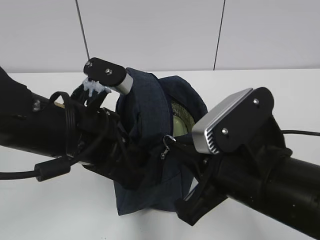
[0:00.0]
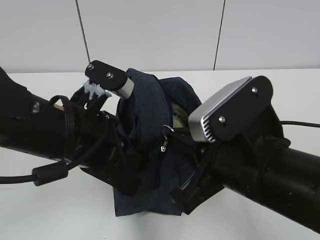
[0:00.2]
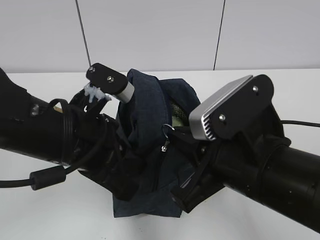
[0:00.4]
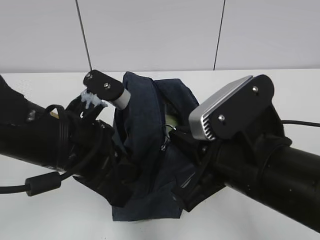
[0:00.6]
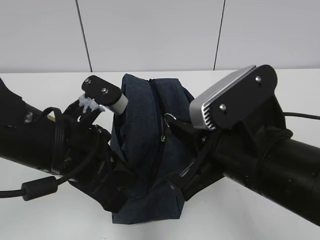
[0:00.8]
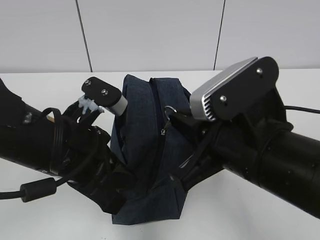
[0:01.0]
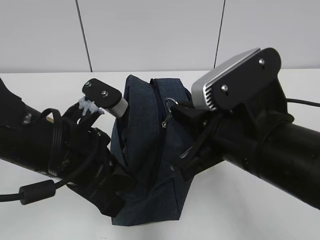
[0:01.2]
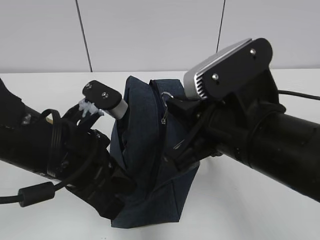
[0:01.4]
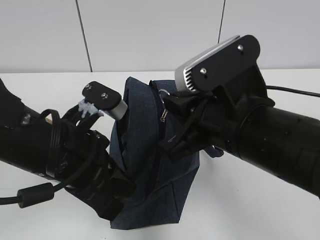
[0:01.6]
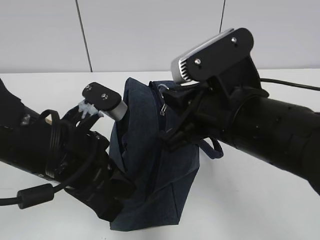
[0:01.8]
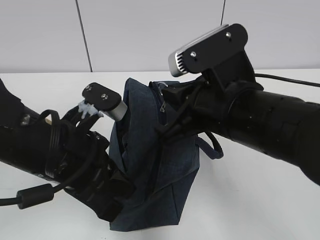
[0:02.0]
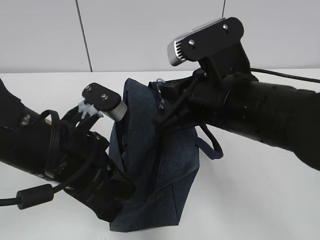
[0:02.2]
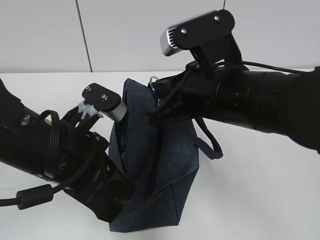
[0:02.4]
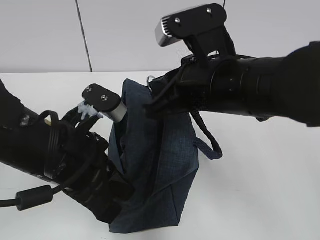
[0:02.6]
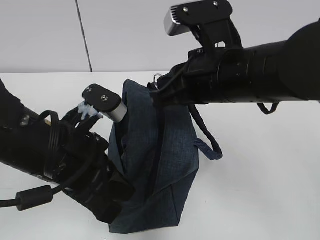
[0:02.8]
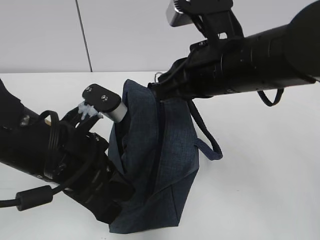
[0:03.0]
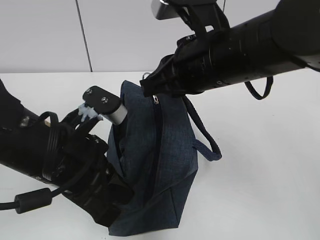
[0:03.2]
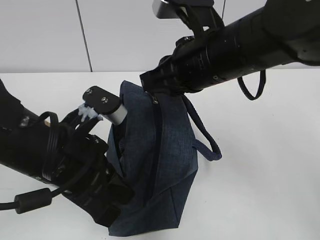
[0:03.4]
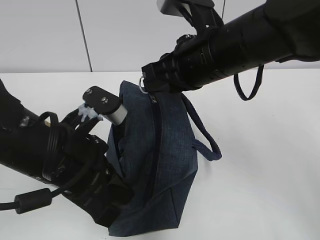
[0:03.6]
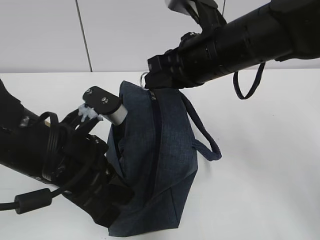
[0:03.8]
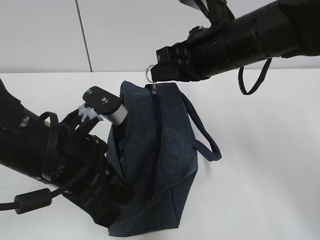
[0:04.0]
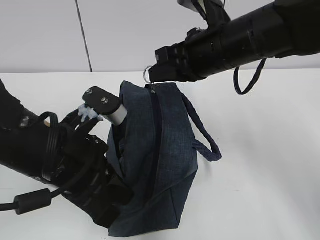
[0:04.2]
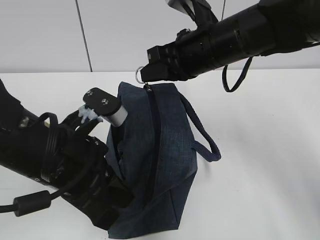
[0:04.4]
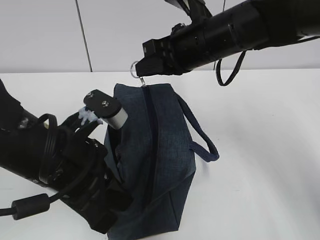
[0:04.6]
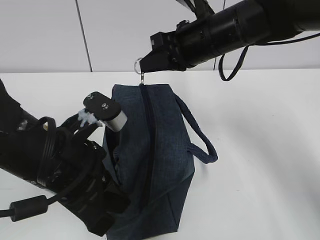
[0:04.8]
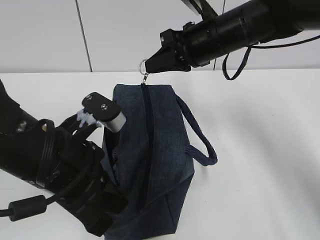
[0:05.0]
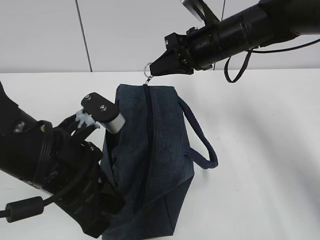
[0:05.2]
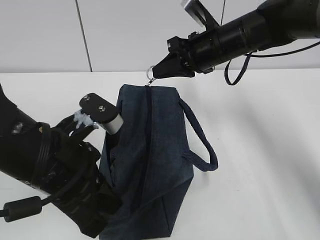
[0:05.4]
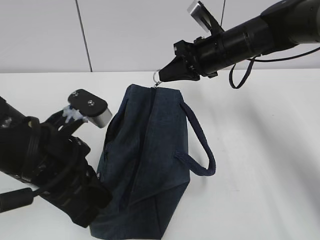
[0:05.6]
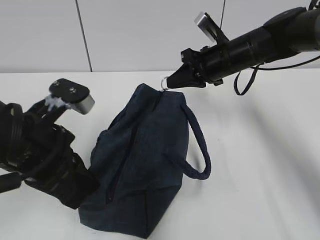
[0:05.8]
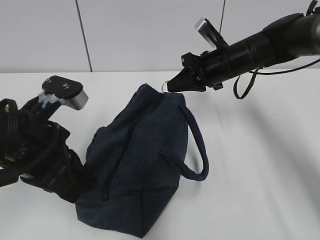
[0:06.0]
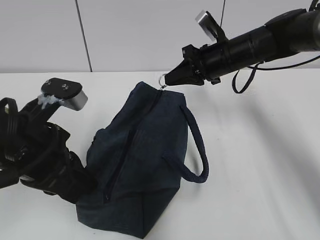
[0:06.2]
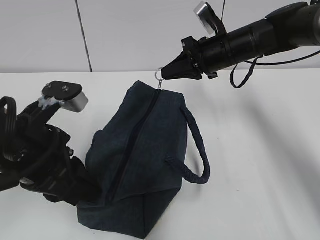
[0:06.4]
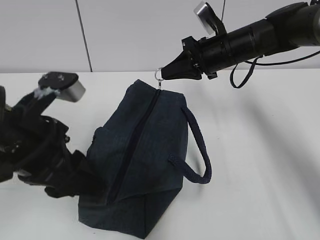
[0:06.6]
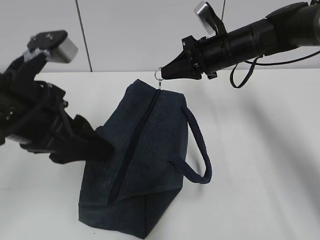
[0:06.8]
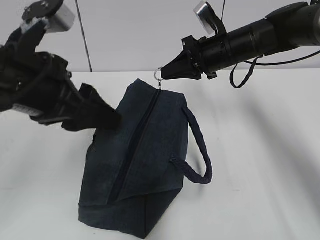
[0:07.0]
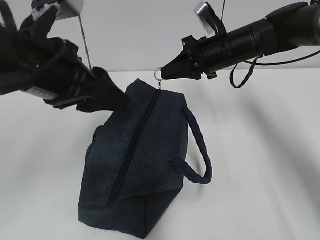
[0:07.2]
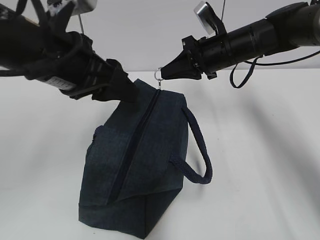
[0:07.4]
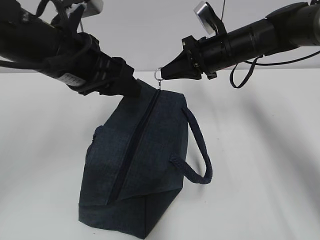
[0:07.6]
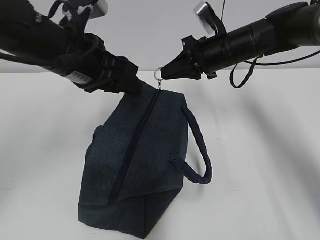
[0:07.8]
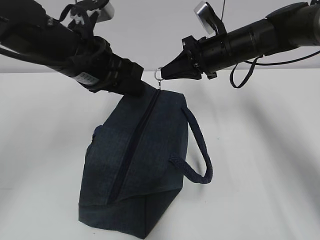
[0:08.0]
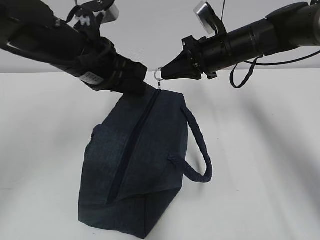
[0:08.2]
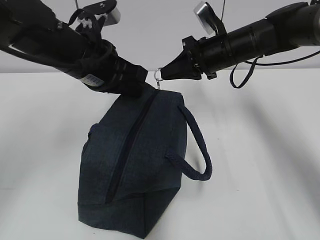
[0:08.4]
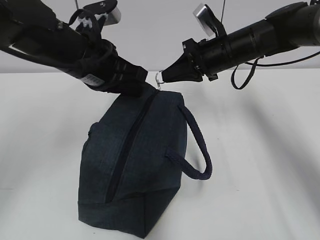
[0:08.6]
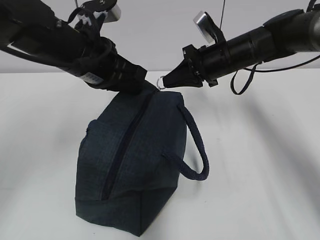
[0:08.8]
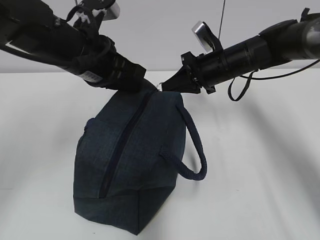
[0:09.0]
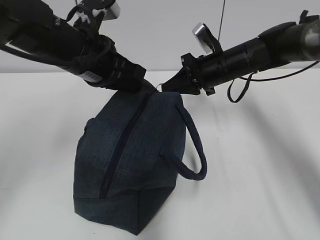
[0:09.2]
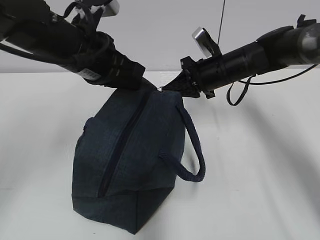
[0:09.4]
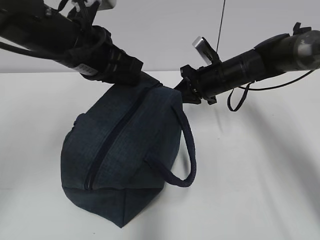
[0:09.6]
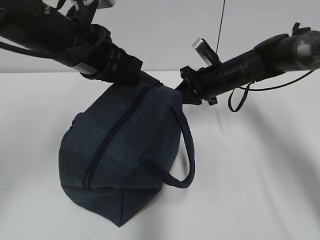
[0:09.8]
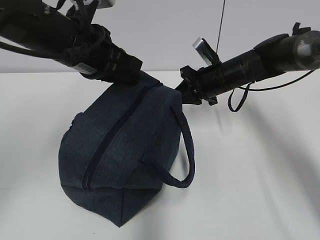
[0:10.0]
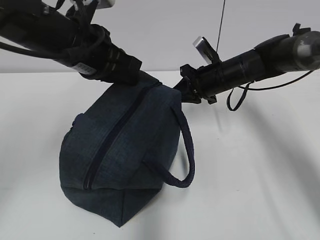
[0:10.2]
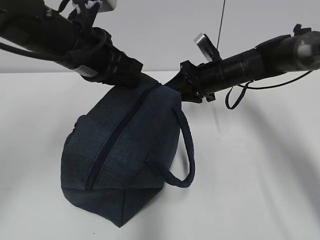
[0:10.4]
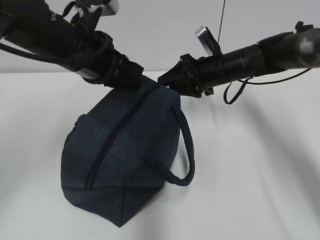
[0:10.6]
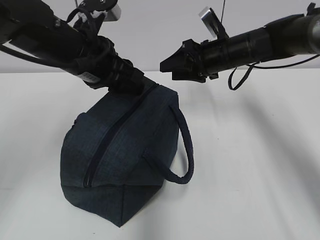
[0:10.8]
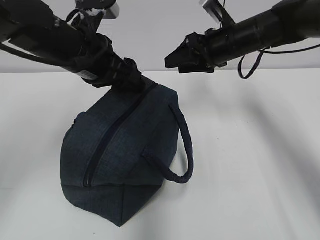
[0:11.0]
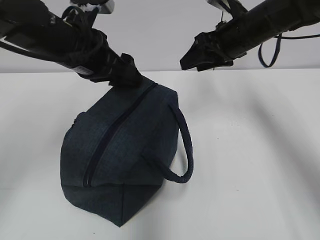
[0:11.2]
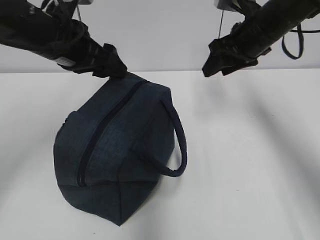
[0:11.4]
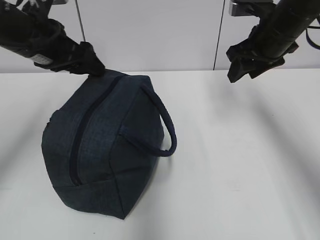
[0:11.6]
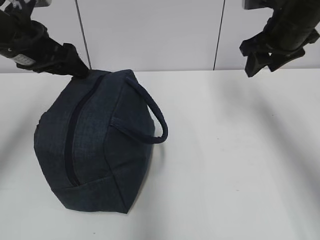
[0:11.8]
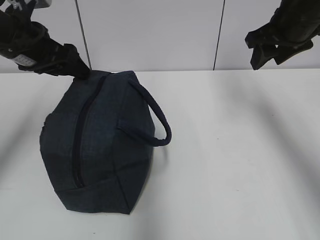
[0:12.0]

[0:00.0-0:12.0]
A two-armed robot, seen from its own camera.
Step, 0:00.0 to 0:06.4: Grab the lunch bag with your left hand.
Step, 0:06.6 to 0:10.2: Pull the zipper with your right hand.
Step, 0:10.4 to 0:11.2: Grab the lunch bag with your left hand.
0:00.0 to 0:01.6: The right gripper moves roughly 5 cm.
0:01.6 to 0:03.0: The right gripper goes some 5 cm forward.
0:03.0 to 0:04.4: The right gripper moves forward, roughly 10 cm.
0:04.4 to 0:06.0: The right gripper travels forward, downward and to the right by approximately 15 cm.
0:06.0 to 0:07.6: The left gripper moves forward and upward, roughly 10 cm, and opens its fingers.
0:07.6 to 0:09.0: The left gripper closes up.
0:09.0 to 0:10.4: The right gripper opens its fingers.
0:10.4 to 0:12.0: The right gripper shifts approximately 20 cm upward, to the right and backward, while the left gripper moves to the left, some 10 cm, and opens.

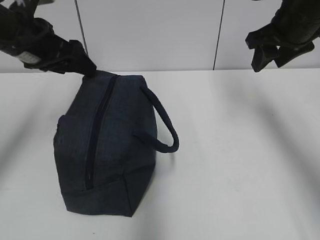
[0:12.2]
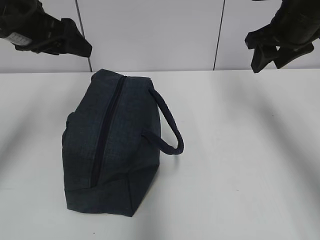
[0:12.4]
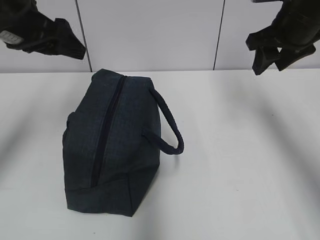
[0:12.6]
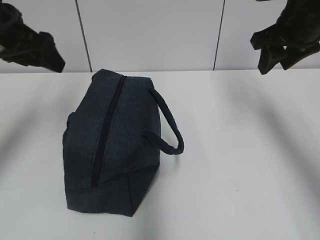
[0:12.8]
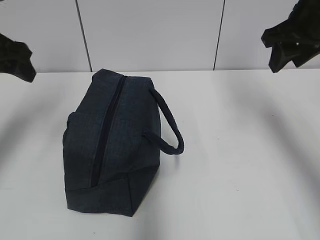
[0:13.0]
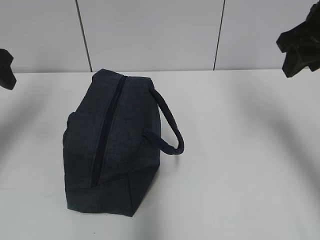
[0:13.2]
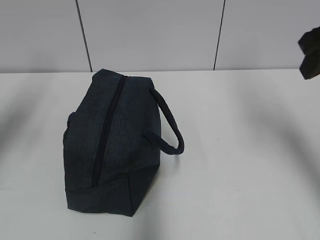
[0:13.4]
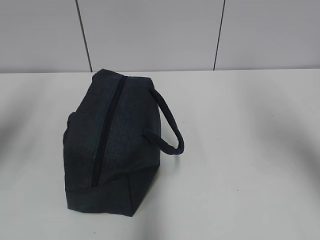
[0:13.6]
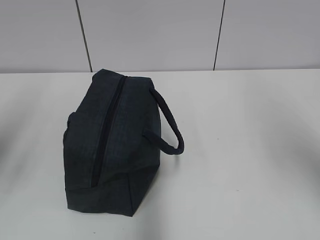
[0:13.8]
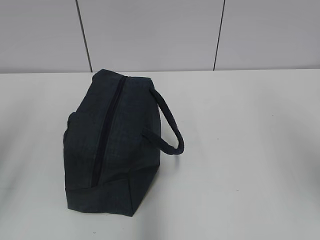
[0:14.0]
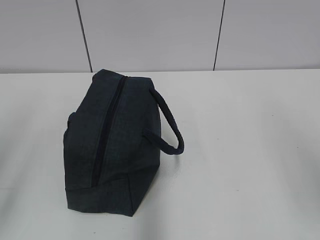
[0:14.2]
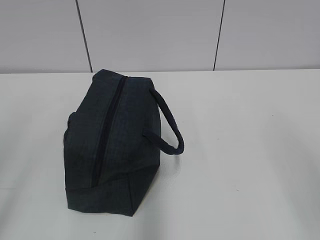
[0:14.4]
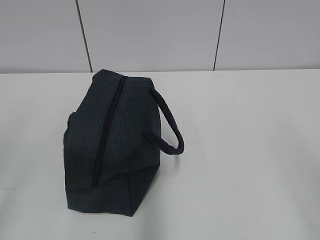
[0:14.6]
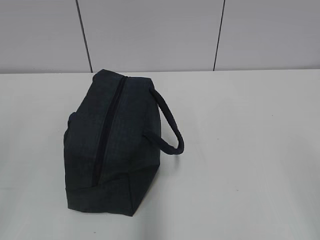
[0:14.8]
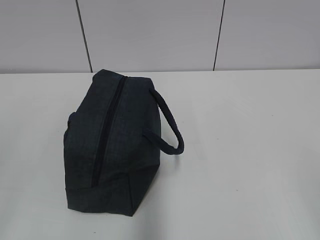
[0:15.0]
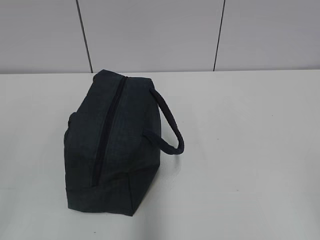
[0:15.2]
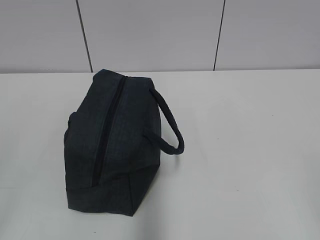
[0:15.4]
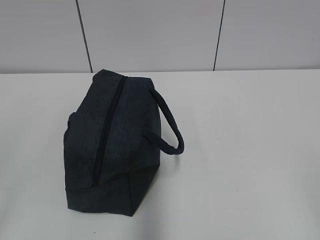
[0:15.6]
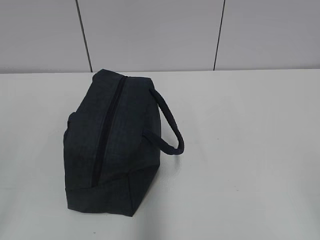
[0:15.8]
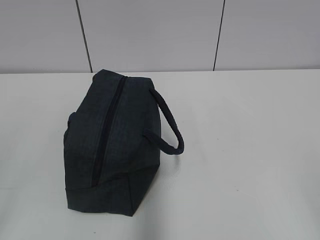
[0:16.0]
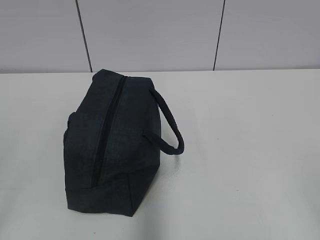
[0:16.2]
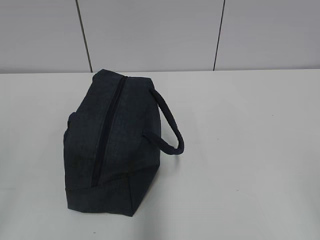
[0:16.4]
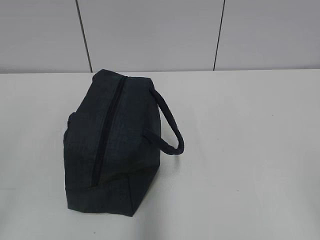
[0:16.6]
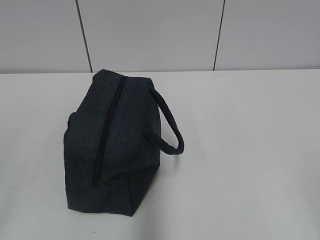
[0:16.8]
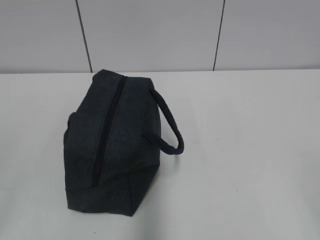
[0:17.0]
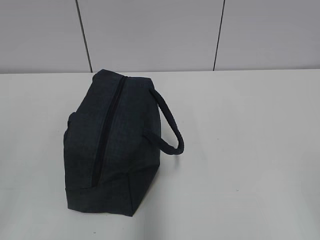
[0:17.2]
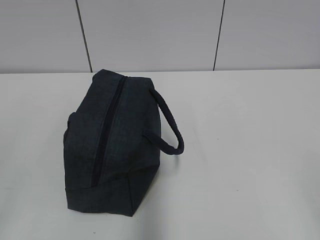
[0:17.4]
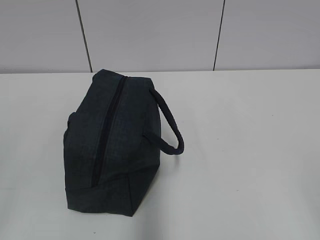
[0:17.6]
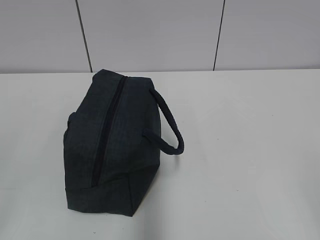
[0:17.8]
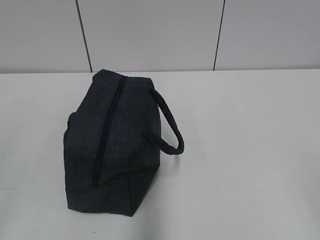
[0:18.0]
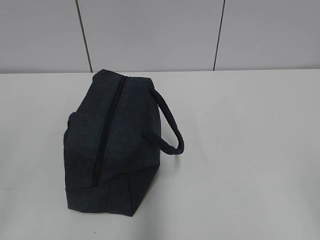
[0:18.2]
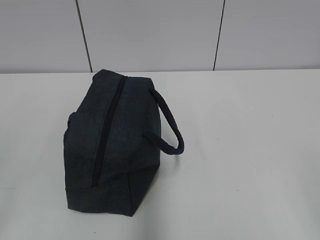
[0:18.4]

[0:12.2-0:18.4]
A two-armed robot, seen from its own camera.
0:12.2 to 0:13.8: The right gripper heads backward, covering some 20 cm. The left gripper moves backward and to the left, about 20 cm.
0:13.8 to 0:15.4: The right gripper moves backward and downward, about 25 cm; the left gripper goes approximately 20 cm backward.
0:15.4 to 0:18.4: Neither gripper changes place.
